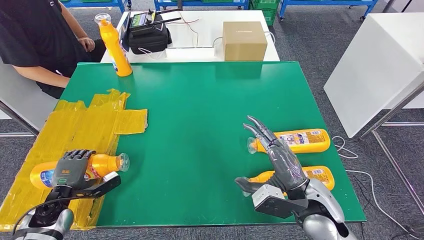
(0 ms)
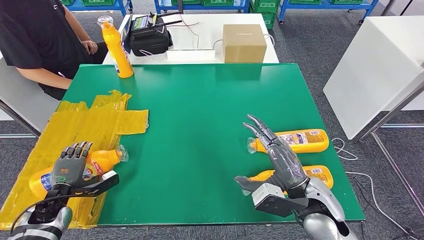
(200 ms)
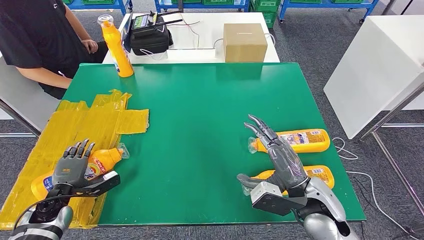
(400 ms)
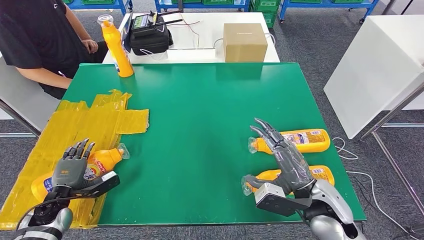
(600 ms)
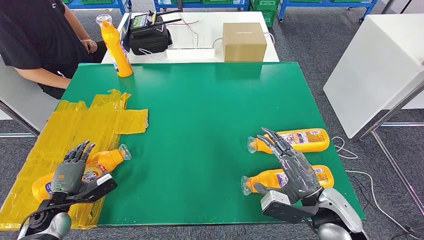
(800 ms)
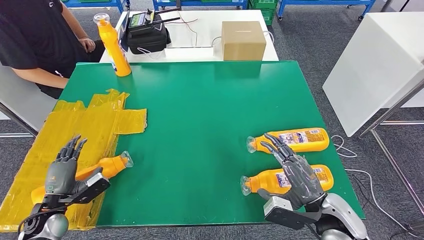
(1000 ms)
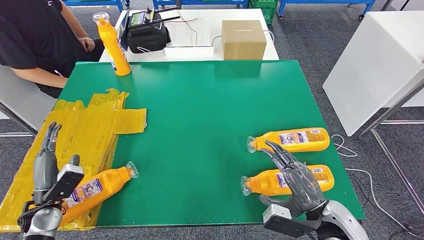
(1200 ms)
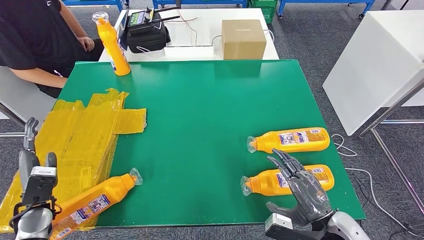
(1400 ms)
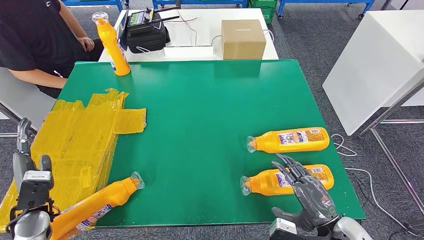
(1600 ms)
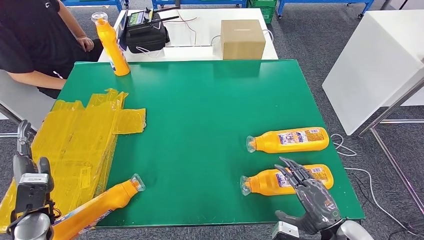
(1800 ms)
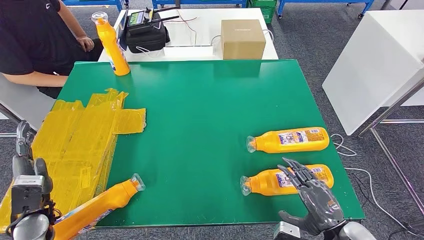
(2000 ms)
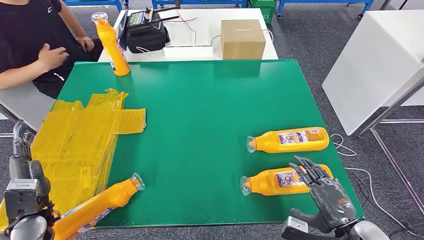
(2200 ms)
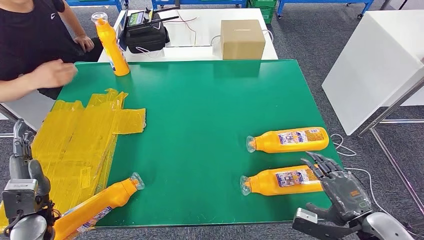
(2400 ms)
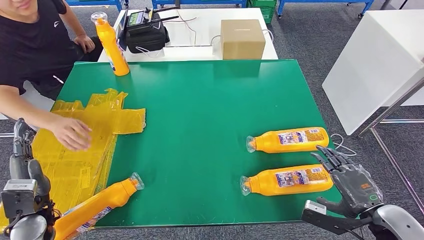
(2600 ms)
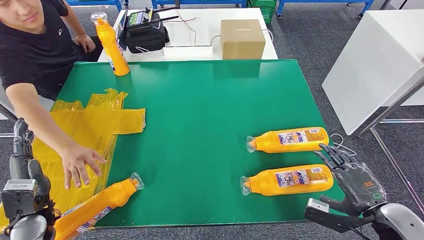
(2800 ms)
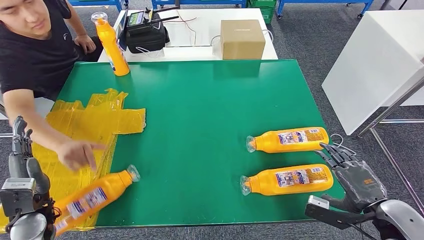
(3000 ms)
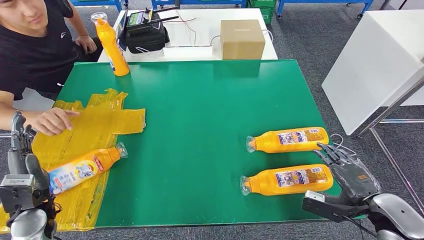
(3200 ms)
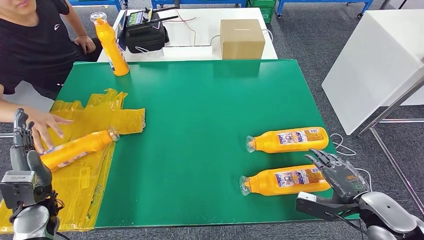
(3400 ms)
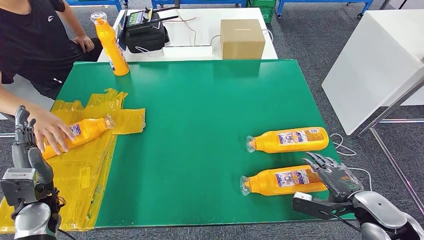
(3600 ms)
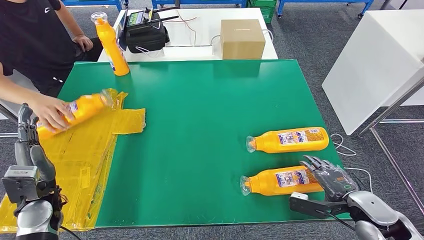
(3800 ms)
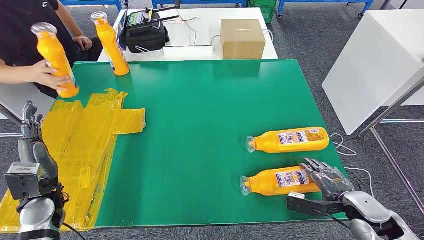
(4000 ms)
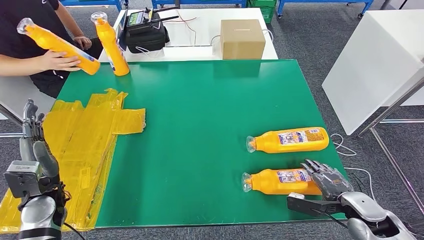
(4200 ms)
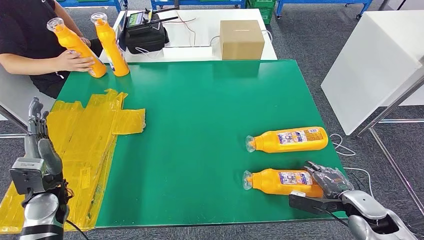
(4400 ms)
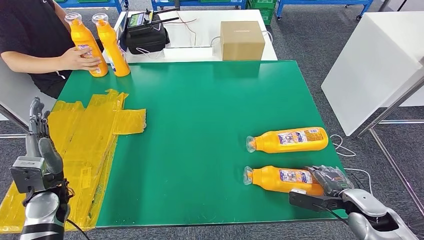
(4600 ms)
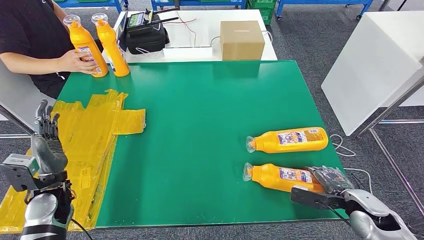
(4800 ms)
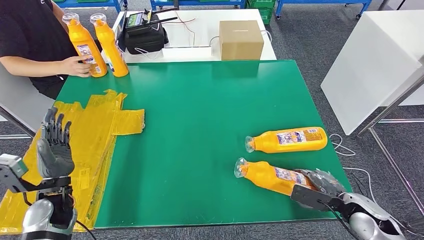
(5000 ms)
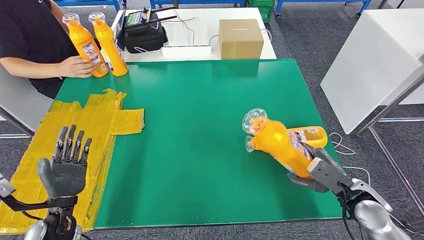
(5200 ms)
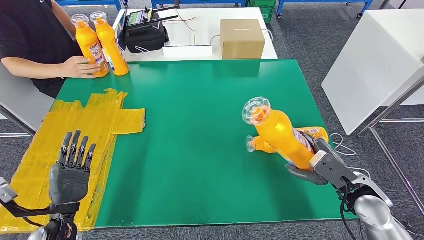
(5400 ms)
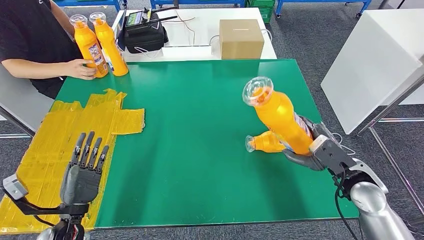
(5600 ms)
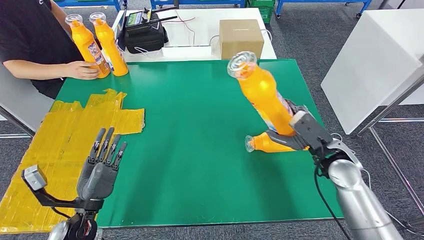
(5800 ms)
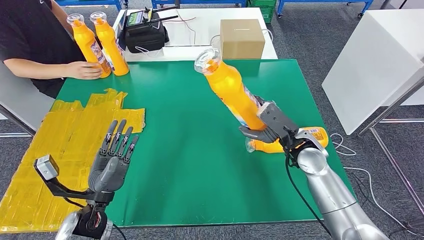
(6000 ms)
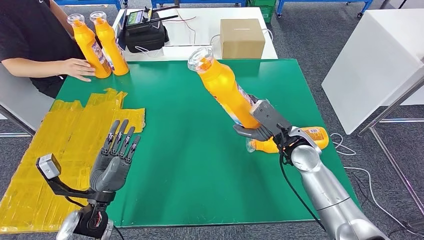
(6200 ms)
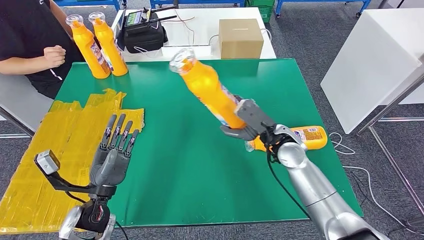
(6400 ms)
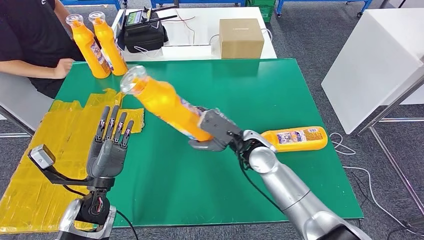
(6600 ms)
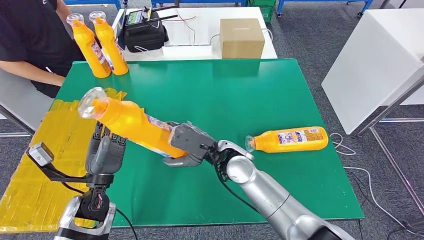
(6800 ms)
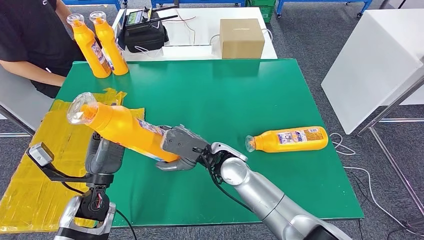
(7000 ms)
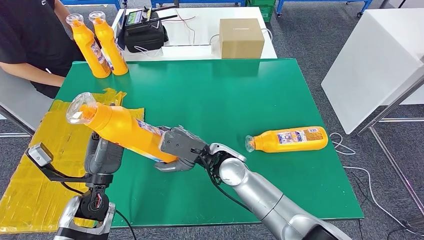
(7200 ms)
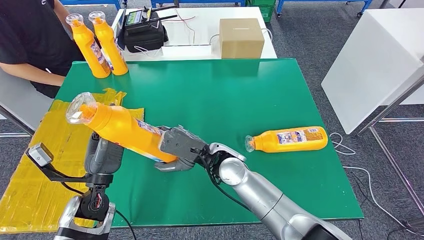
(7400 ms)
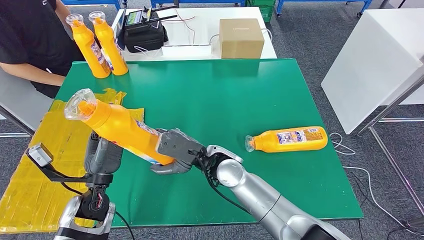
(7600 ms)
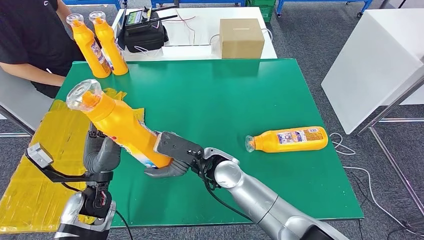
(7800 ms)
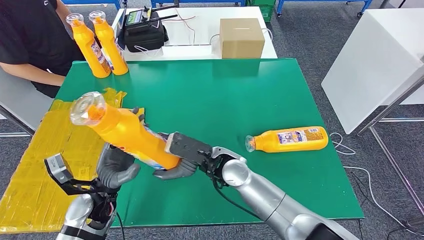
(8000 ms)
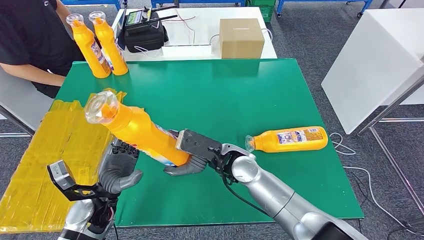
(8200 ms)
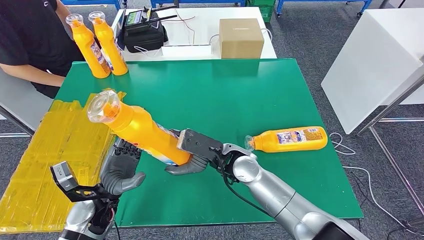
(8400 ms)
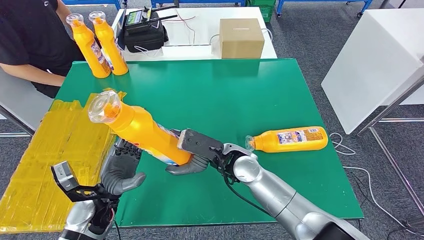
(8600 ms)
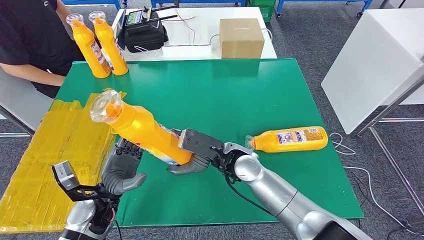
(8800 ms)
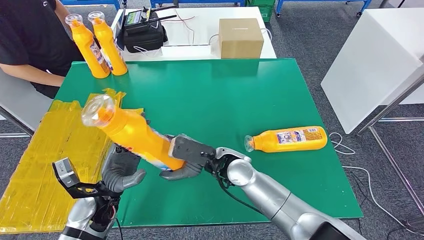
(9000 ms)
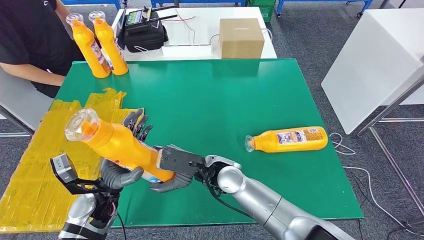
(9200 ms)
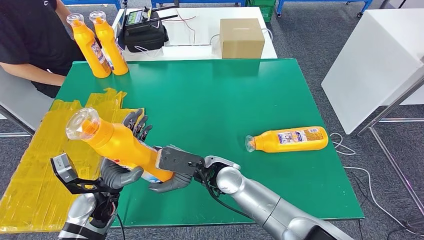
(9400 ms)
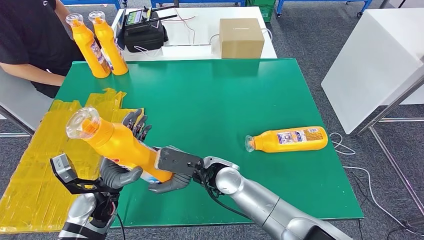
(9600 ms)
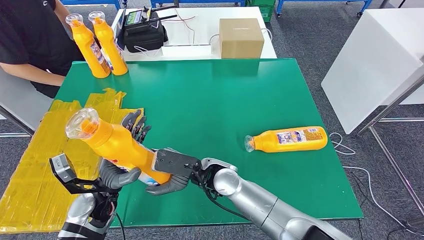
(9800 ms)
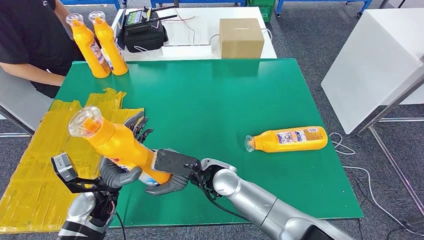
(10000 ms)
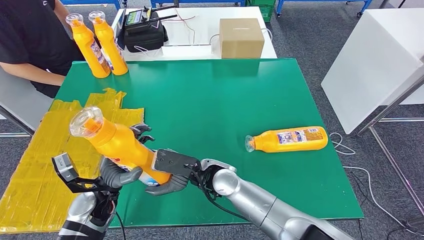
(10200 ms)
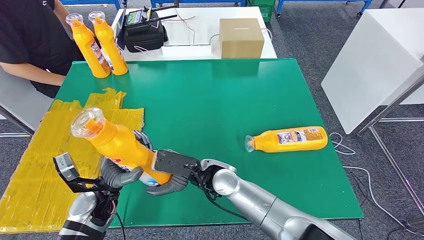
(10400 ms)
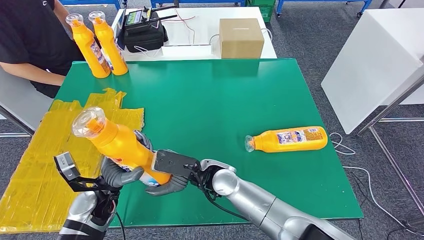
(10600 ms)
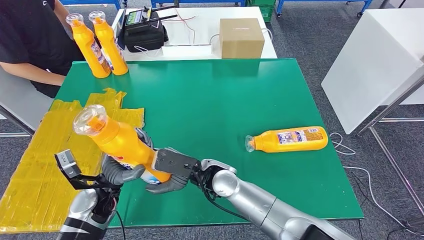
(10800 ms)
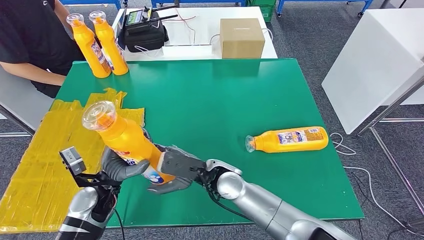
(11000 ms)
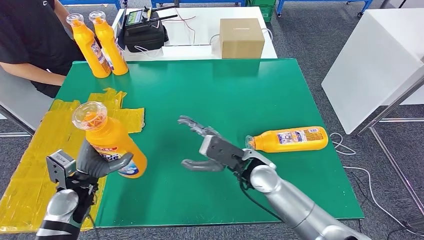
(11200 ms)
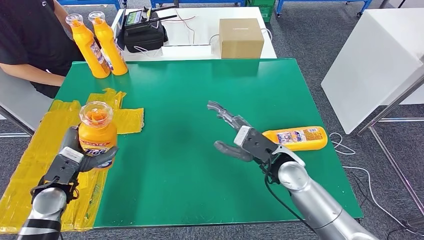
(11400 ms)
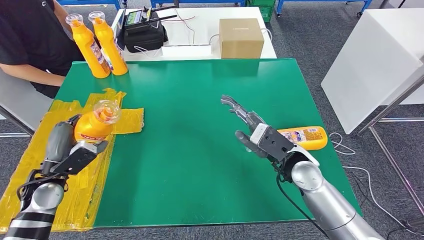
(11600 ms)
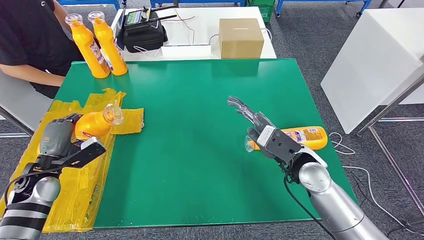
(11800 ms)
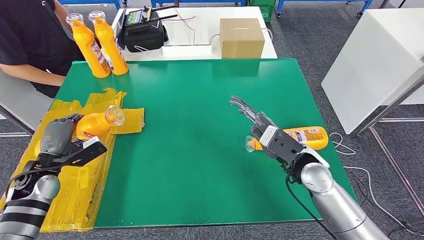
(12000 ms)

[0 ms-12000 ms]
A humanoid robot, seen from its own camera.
Step, 2000 ms to 8400 ms: Pick up the fast-moving consumer goods bottle from the table.
9000 ms to 10400 ms: The hands stay close to where they were, moving slightly.

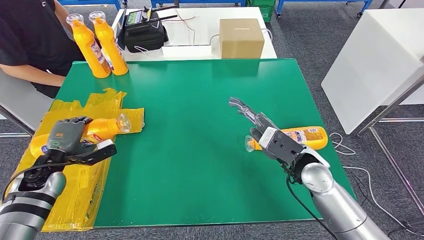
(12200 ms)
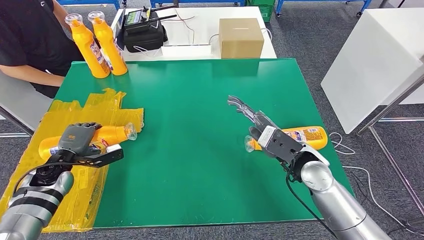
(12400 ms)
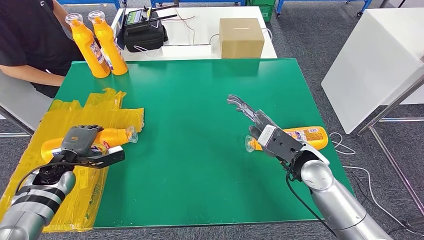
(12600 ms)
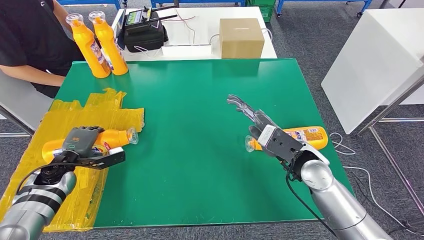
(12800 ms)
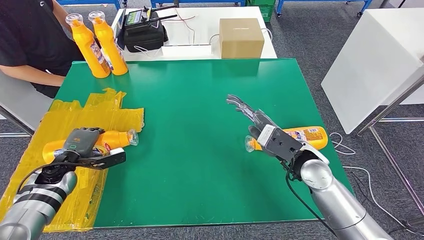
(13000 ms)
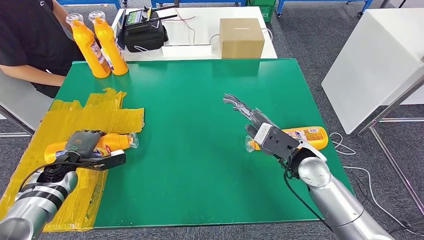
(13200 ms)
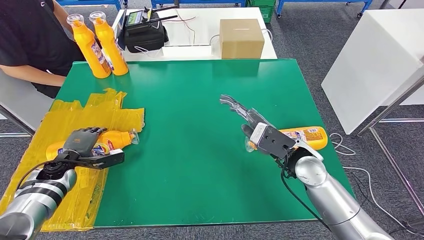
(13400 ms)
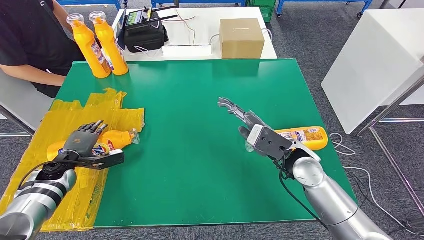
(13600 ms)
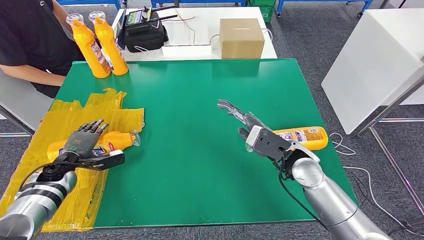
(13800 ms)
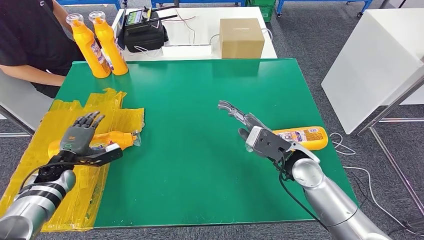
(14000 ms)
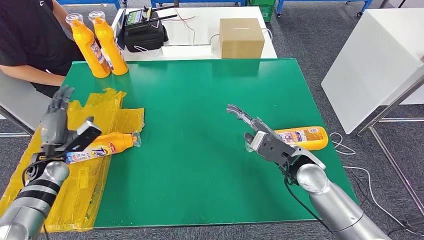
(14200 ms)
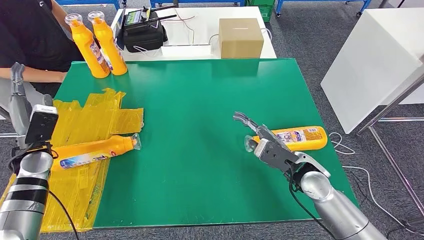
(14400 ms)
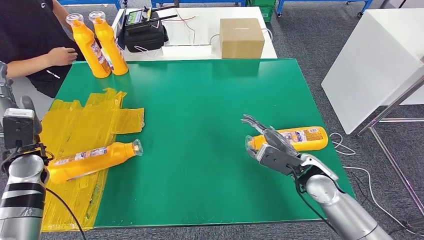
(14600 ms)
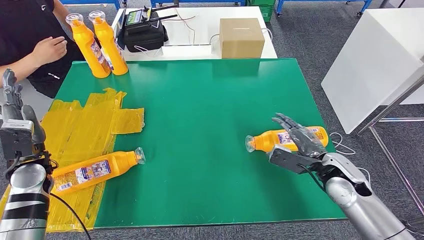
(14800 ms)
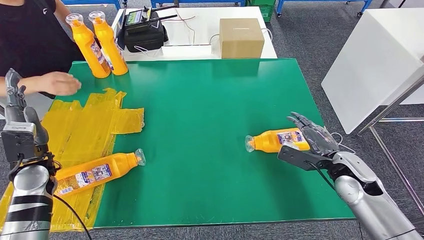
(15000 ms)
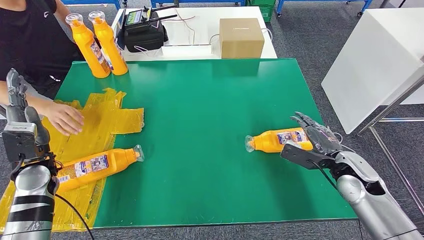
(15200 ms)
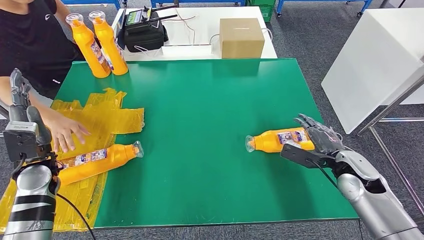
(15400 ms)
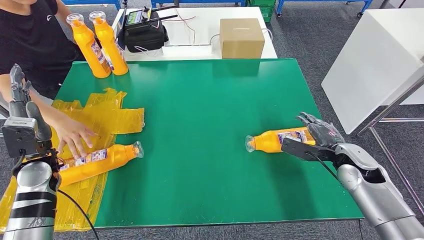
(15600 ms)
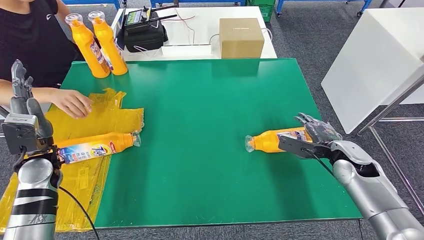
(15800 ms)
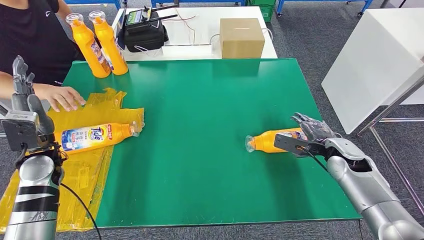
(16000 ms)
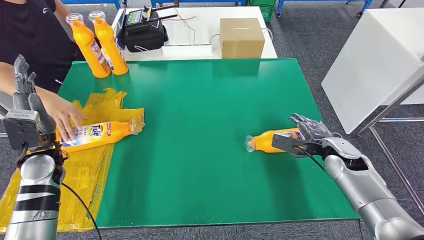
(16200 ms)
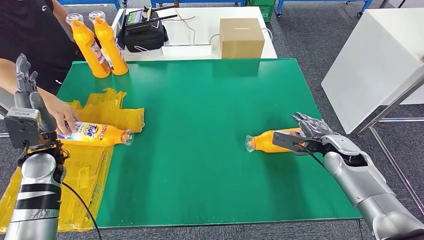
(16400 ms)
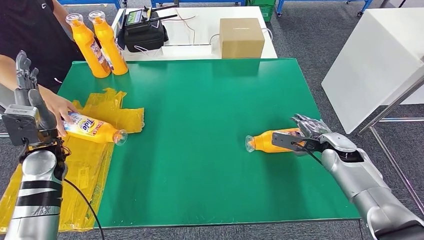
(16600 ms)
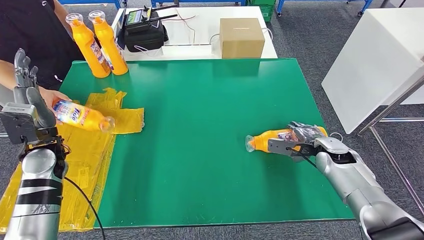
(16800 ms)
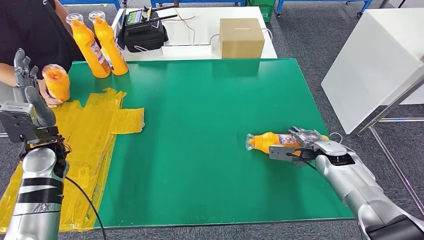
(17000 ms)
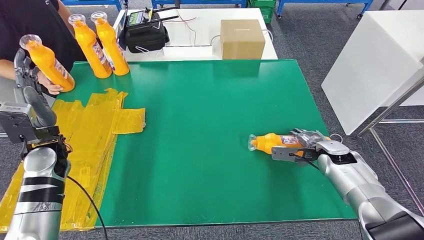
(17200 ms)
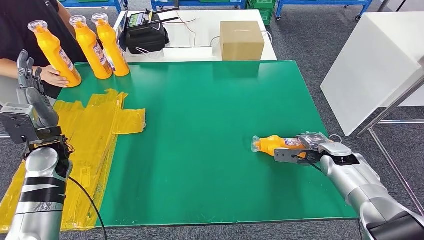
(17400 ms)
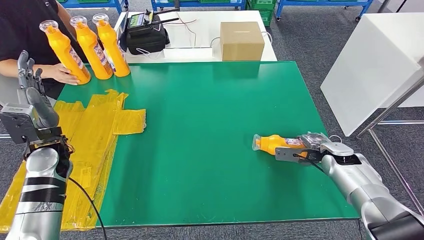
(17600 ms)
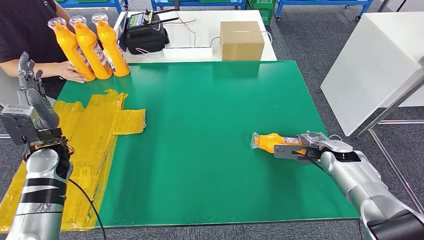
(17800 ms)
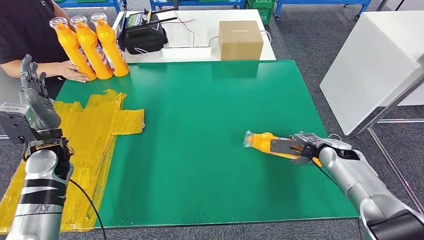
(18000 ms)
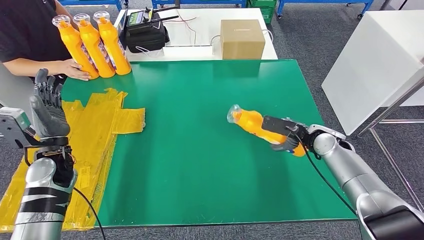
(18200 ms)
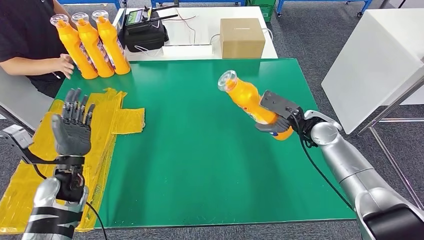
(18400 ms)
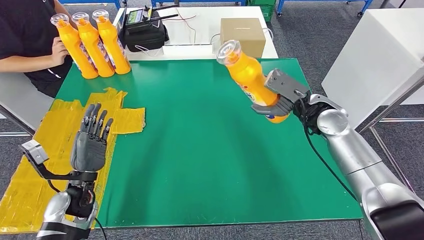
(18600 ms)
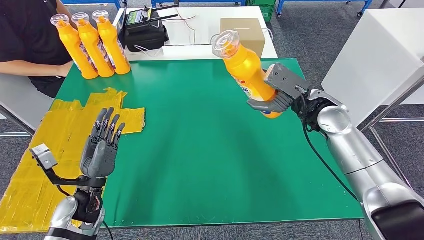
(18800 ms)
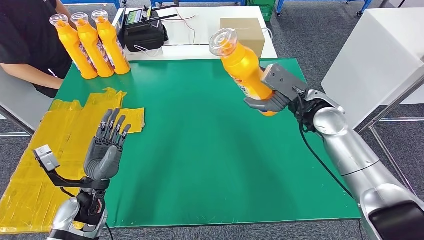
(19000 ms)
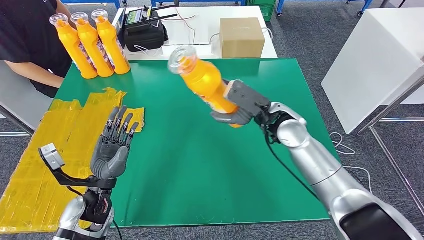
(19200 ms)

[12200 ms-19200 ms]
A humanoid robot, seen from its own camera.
Step, 12200 ms to 15400 ms: Flip the fast-moving consumer goods bottle to the front side.
12200 ms to 13600 ms: The left hand goes approximately 5 cm downward.
15000 ms to 16400 ms: The right hand moves forward, about 5 cm.
